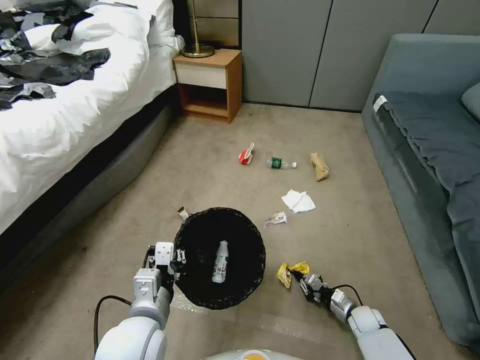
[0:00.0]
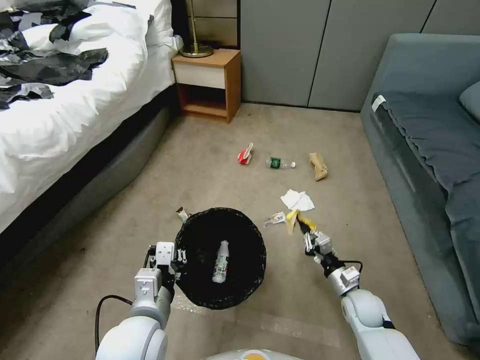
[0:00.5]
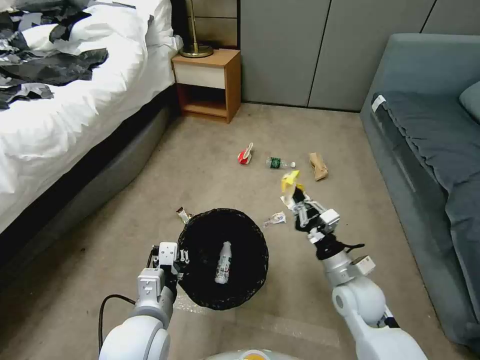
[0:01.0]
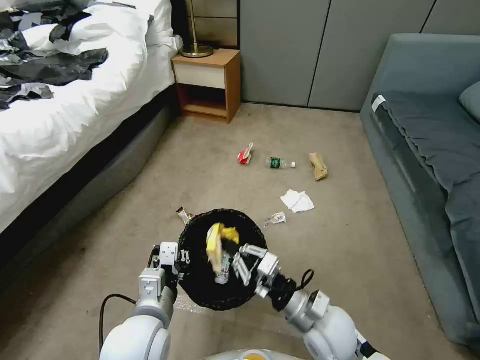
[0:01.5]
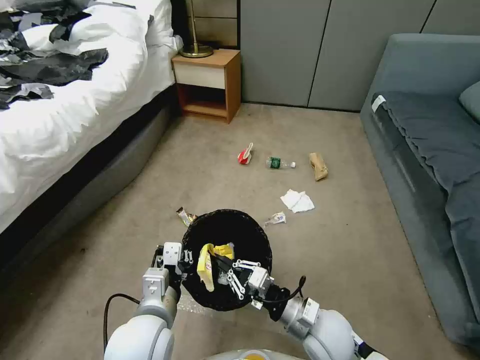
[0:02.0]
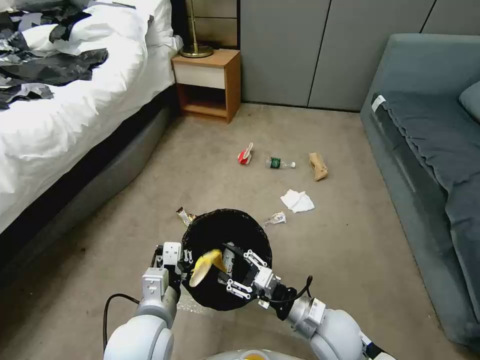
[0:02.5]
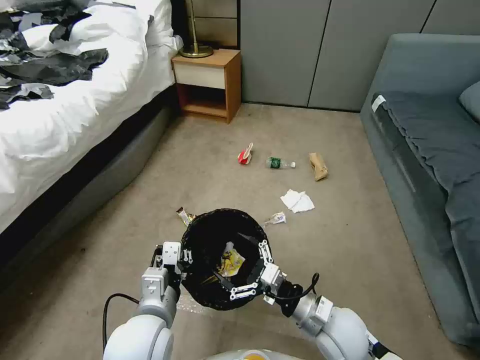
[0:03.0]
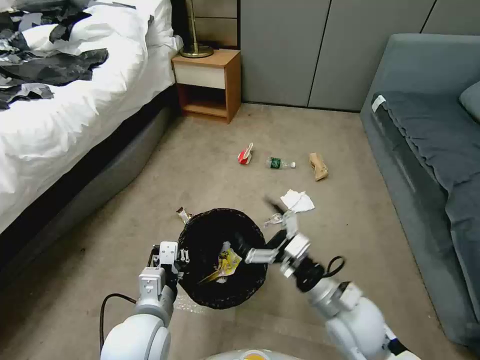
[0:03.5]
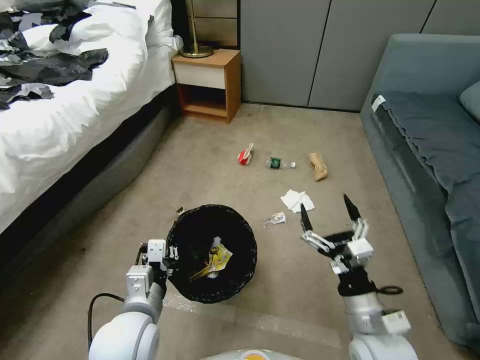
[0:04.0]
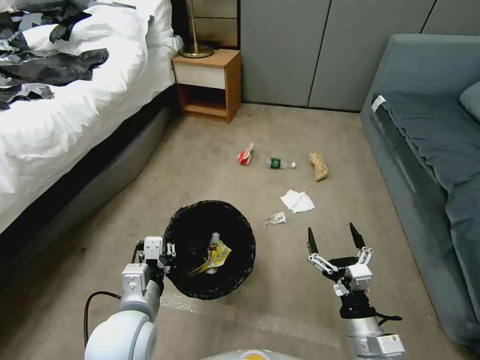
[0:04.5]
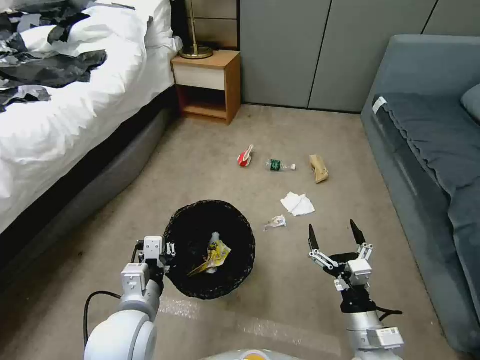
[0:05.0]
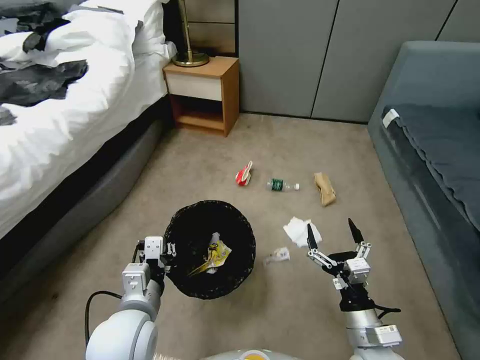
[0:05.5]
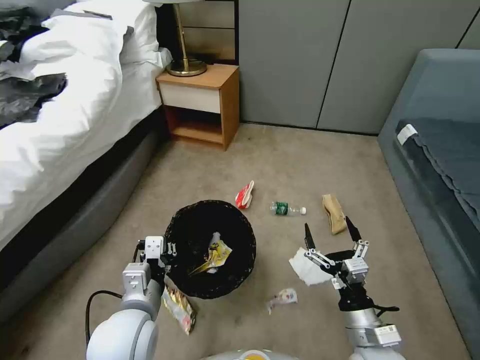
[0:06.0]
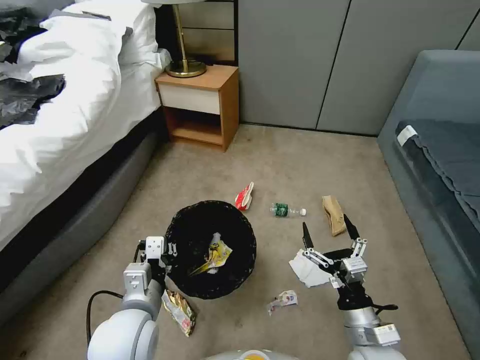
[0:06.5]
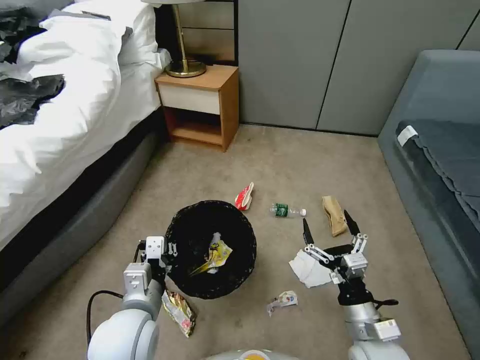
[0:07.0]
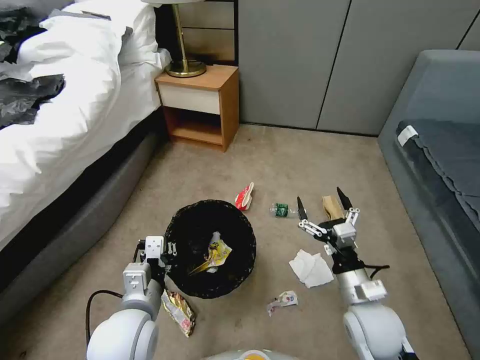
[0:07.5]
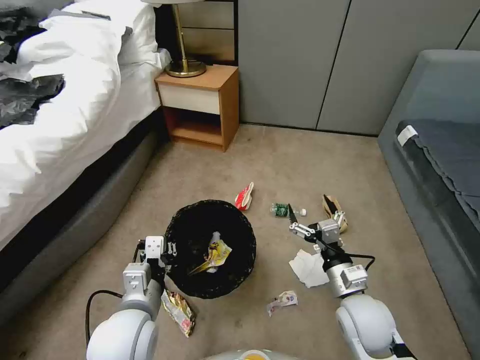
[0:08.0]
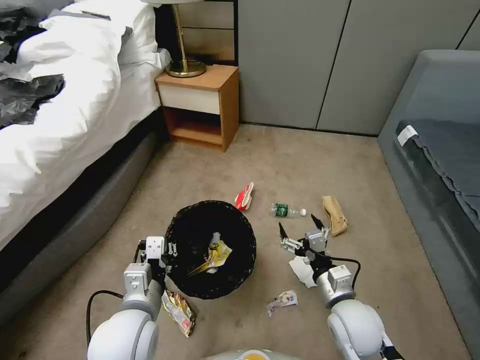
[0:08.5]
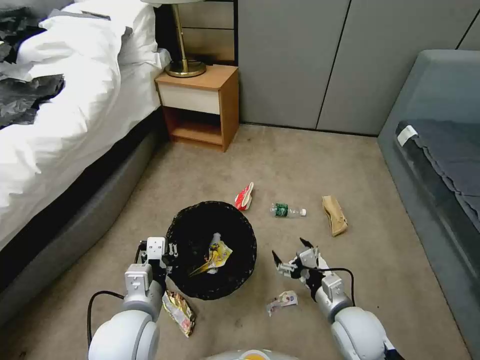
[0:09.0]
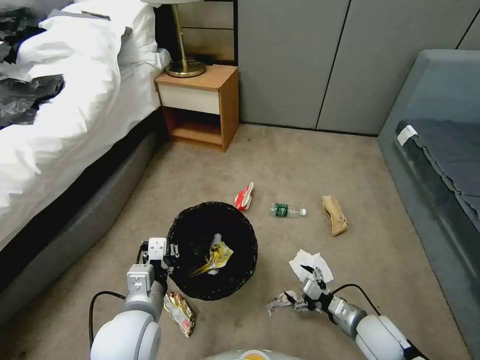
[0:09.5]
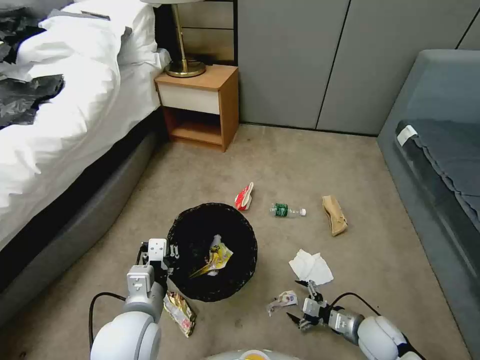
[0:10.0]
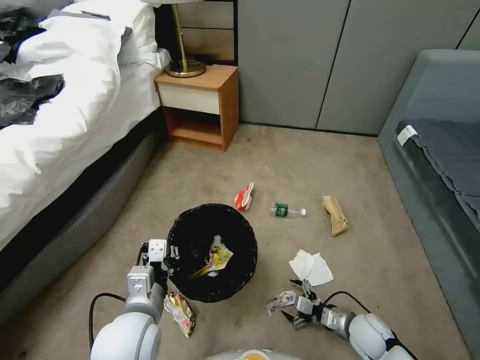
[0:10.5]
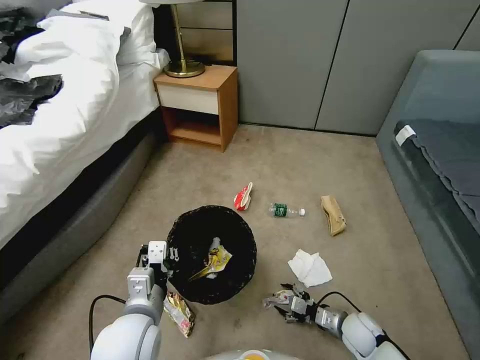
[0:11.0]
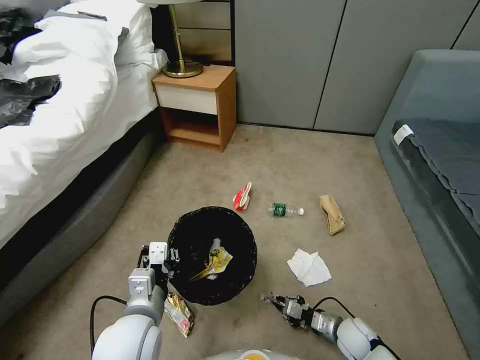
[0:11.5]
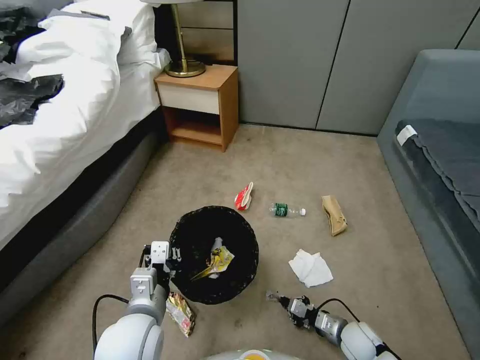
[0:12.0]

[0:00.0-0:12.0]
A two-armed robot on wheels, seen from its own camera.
Task of the whole recording: Pick up the trash bin, then pick up the garbage from the floor and place it into the trash bin.
0:00.0 to 0:02.0: The right gripper travels upward and to the left by about 30 cm.
0:02.0 to 0:04.0: The right gripper is displaced to the right and upward by roughly 10 cm, and opens.
0:04.0 to 0:06.0: The right gripper moves roughly 5 cm.
0:06.0 to 0:08.0: The right gripper travels forward by roughly 10 cm.
0:08.0 to 0:10.0: The right gripper moves downward and to the right, some 20 cm.
0:10.0 to 0:12.0: The right gripper moves downward, some 5 cm, and closes up.

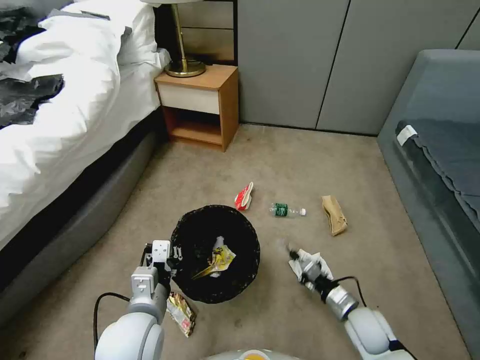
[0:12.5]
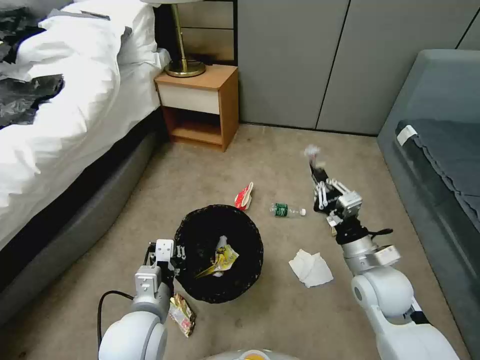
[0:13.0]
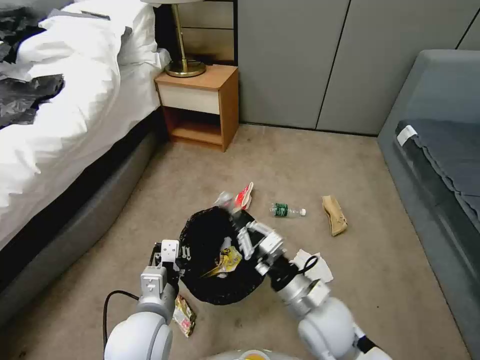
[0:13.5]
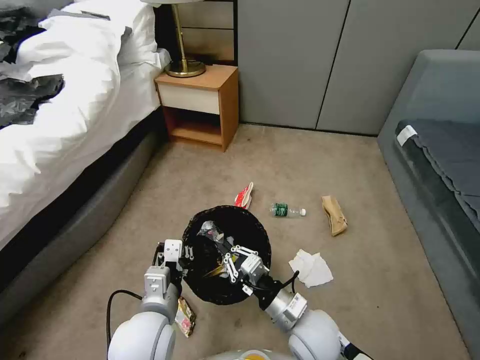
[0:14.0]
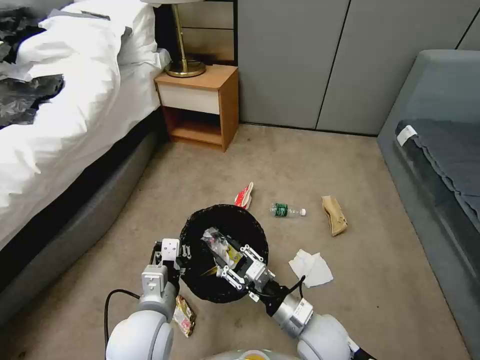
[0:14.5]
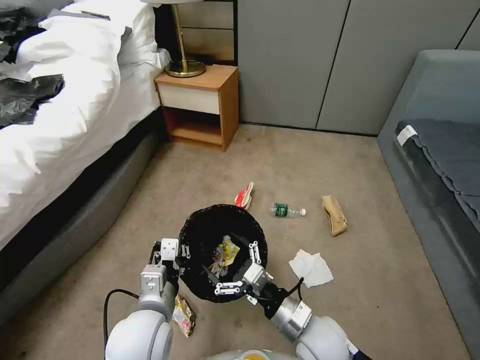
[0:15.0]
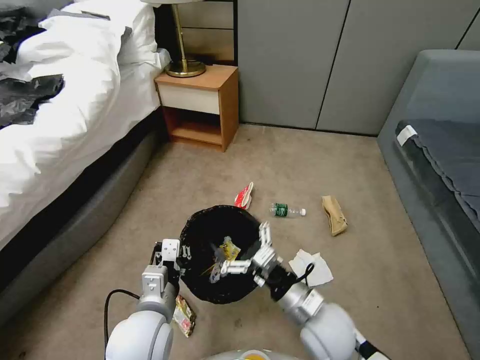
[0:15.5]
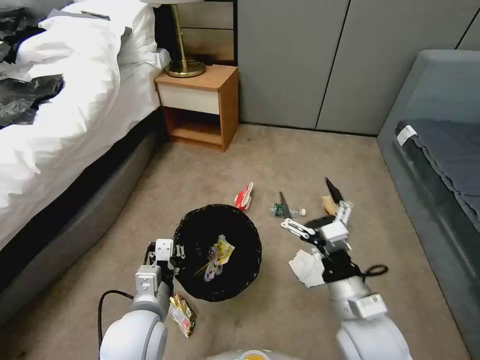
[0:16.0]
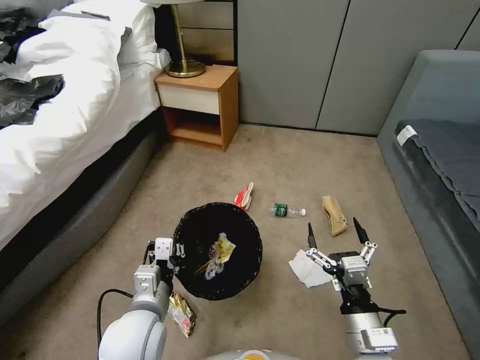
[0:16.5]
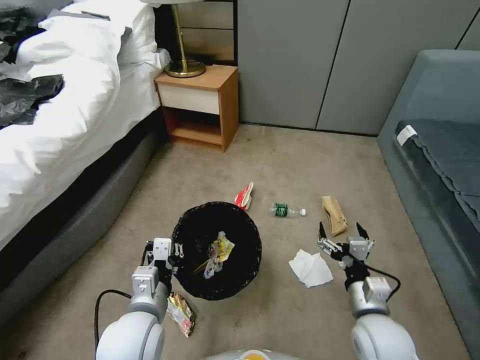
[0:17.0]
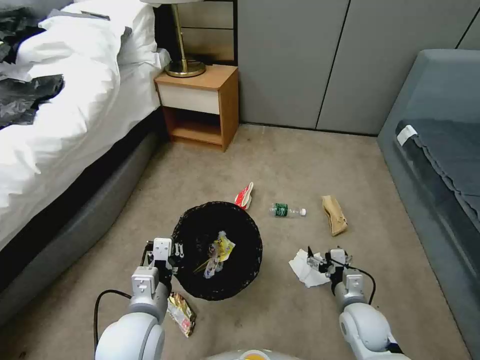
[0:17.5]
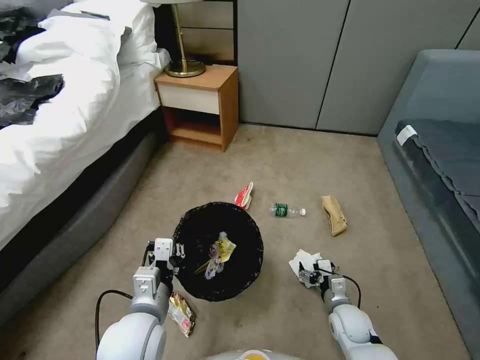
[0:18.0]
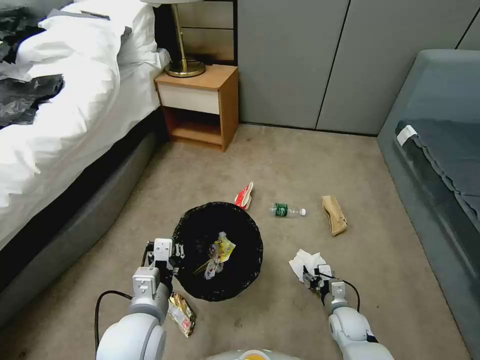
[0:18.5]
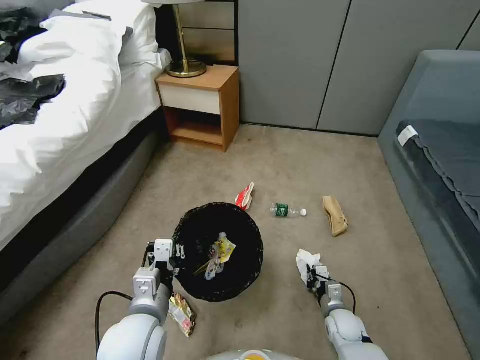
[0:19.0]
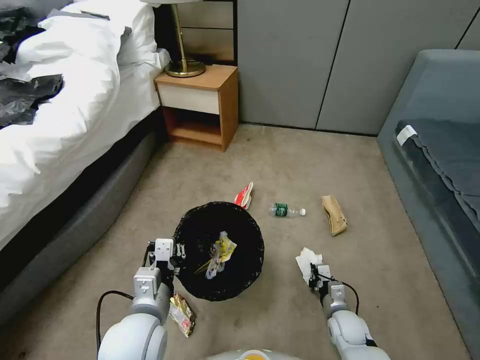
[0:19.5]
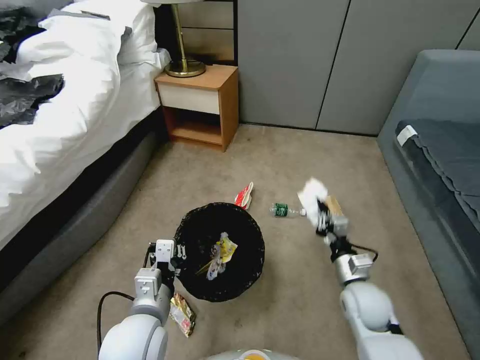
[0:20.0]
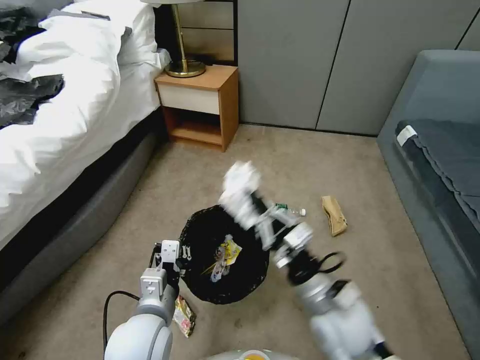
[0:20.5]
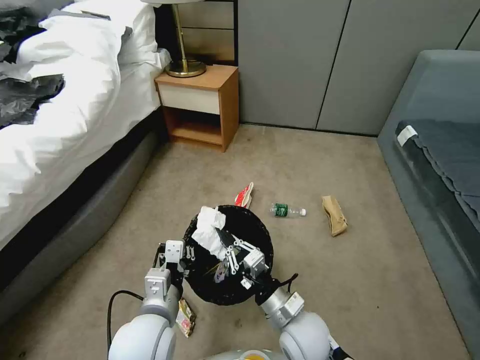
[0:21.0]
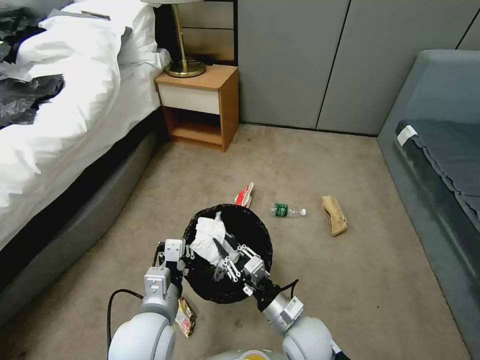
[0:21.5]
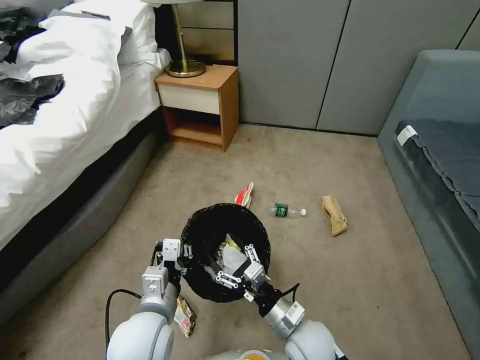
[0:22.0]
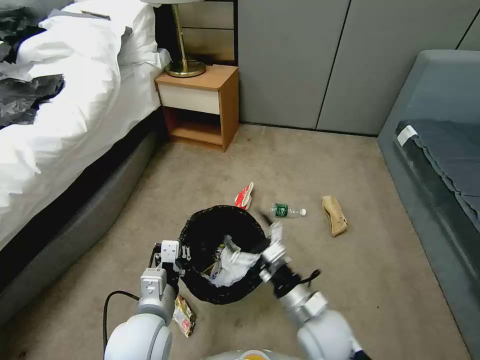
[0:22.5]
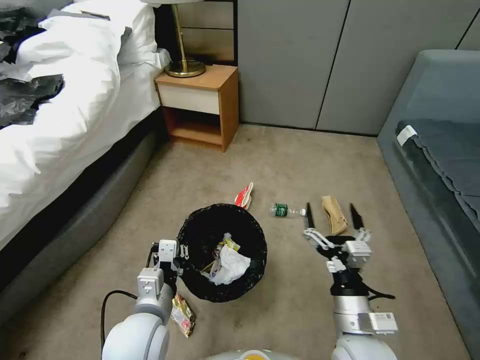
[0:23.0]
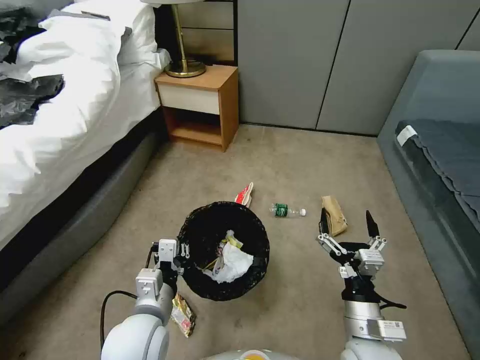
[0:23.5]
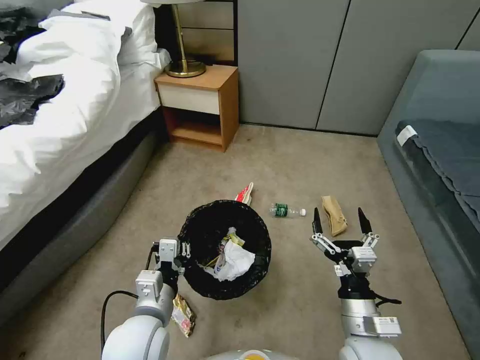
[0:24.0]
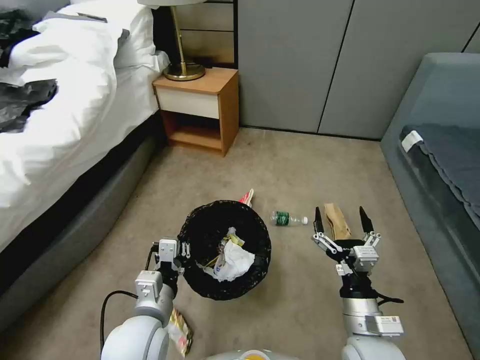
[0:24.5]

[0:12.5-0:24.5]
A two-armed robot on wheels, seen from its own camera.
Task of the whole recording: Pick up the trash bin, then pick up the garbage from the floor and place it into the trash bin.
0:12.5 to 0:14.5: The right gripper heads to the left and upward, covering about 20 cm, and opens its fingers.
0:14.5 to 0:16.5: The right gripper is displaced to the right and backward by some 10 cm, and opens.
0:16.5 to 0:18.5: The right gripper is displaced downward and forward by about 25 cm.
0:18.5 to 0:20.5: The right gripper heads upward and to the left, covering roughly 30 cm, and closes.
0:20.5 to 0:22.5: The right gripper shifts approximately 10 cm downward, and opens up.
0:22.5 to 0:24.5: The right gripper moves to the right, roughly 10 cm.

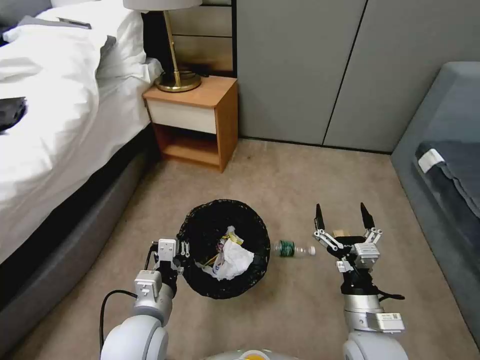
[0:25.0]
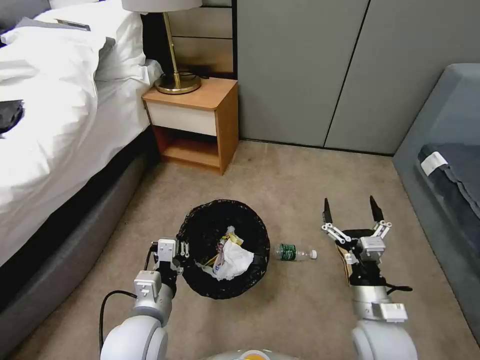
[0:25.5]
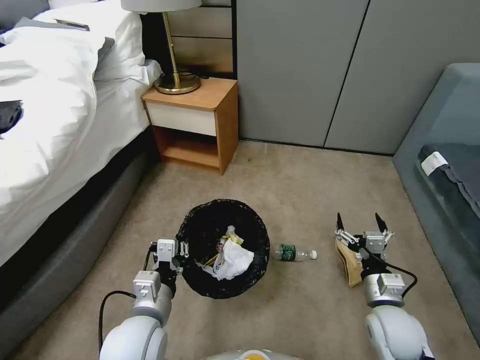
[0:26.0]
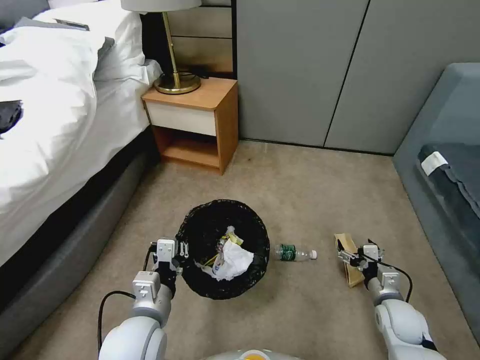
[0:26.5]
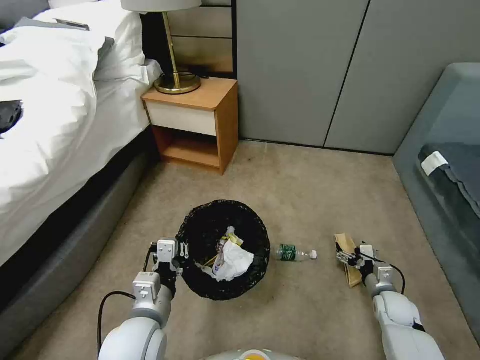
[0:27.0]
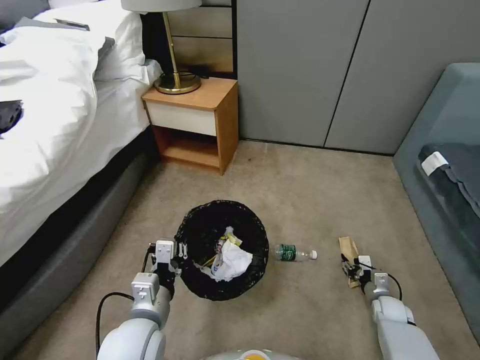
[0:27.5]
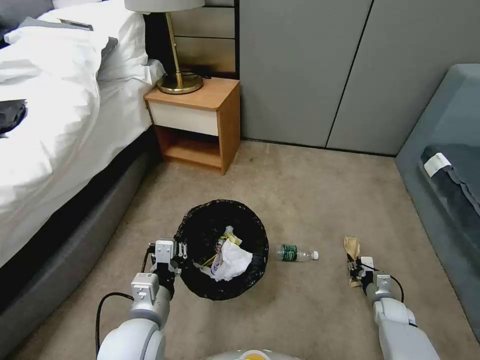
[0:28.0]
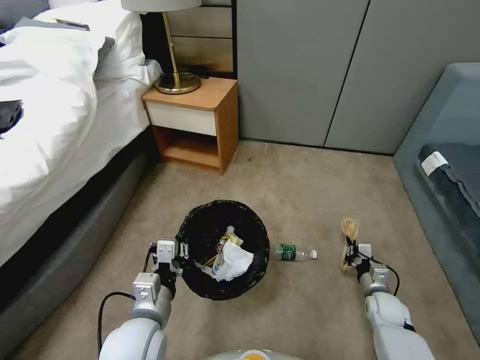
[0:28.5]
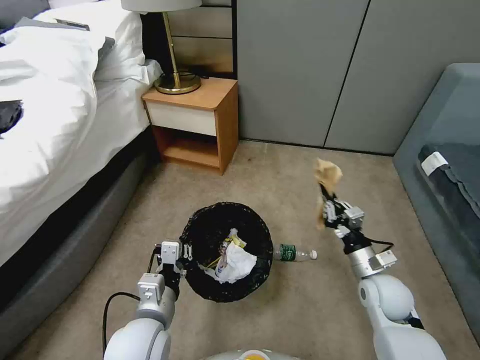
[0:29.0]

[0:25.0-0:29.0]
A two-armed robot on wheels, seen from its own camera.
Task of the whole recording: Pick up the trash bin, then pick up the garbage from the floor and place it into the trash bin.
0:25.0 to 0:27.0: The right gripper heads to the right, downward and forward, covering approximately 30 cm.
0:27.0 to 0:29.0: The right gripper shifts some 20 cm upward and to the left, and closes.
